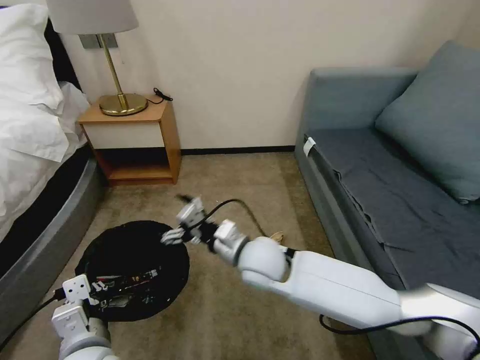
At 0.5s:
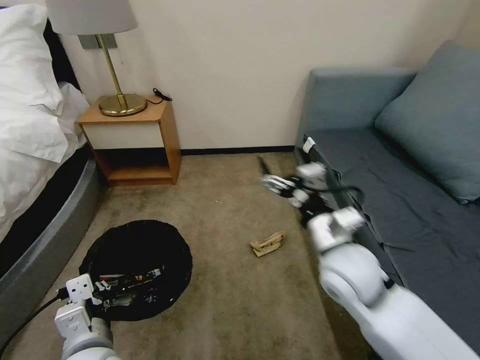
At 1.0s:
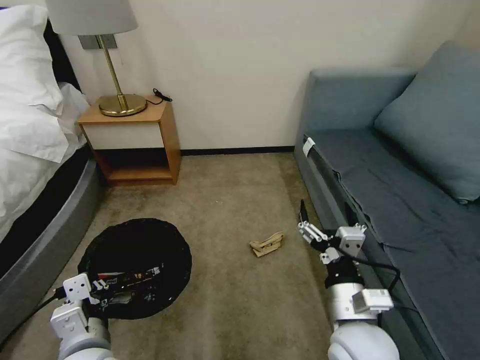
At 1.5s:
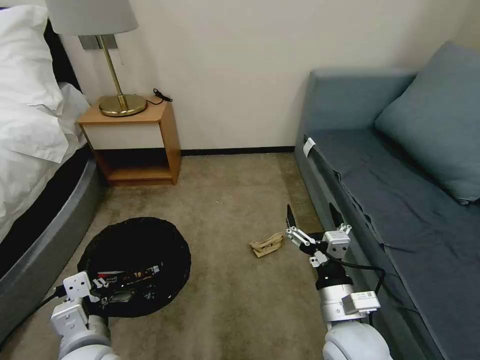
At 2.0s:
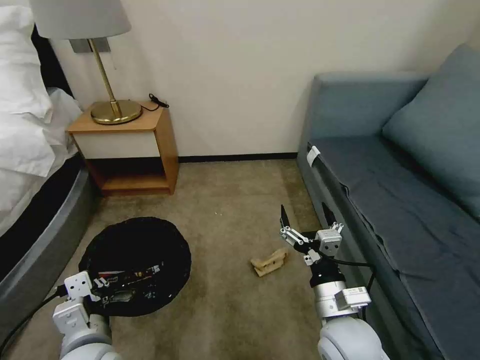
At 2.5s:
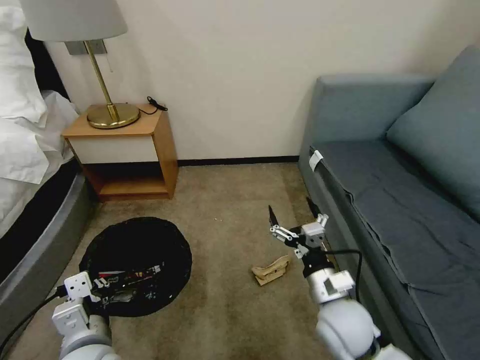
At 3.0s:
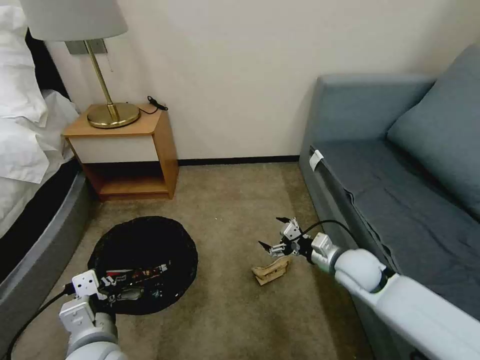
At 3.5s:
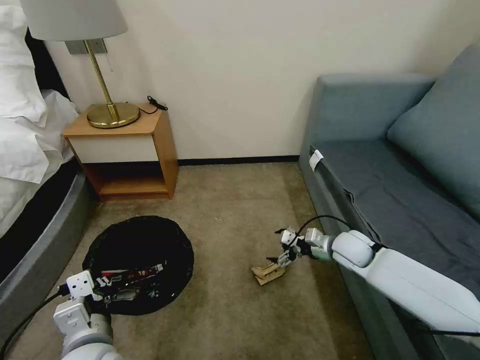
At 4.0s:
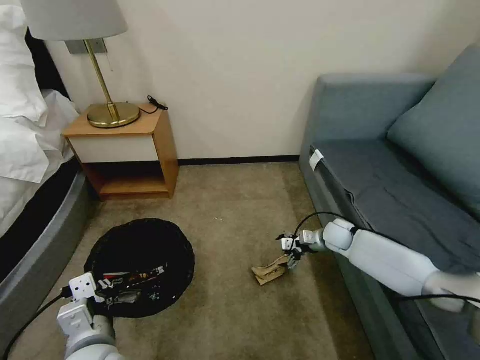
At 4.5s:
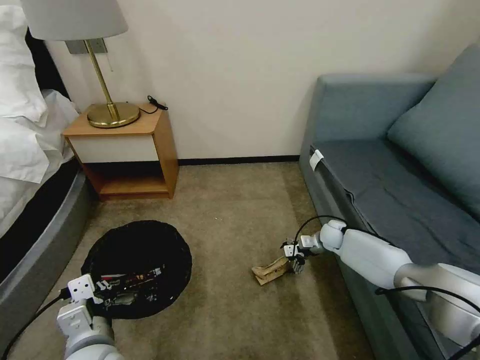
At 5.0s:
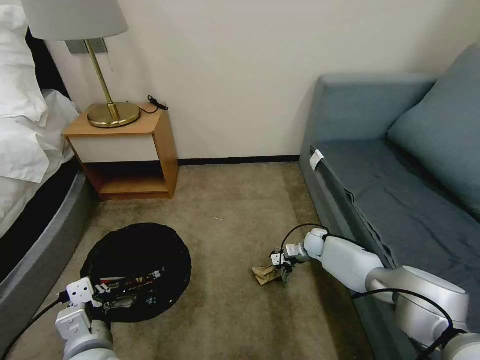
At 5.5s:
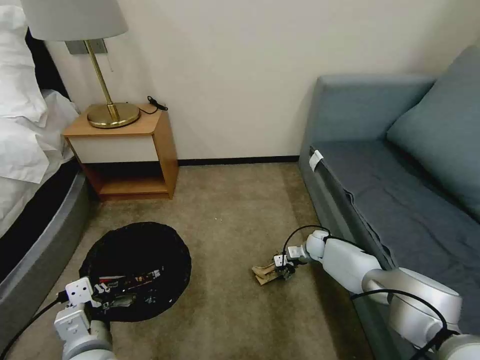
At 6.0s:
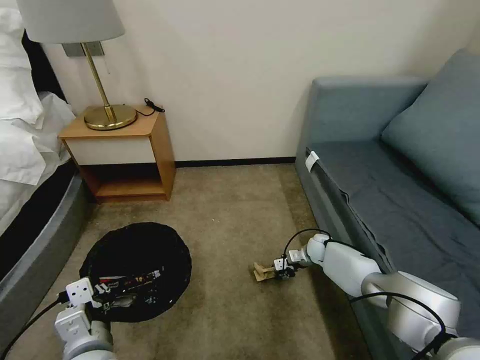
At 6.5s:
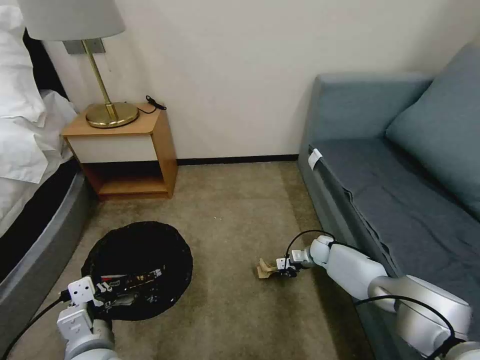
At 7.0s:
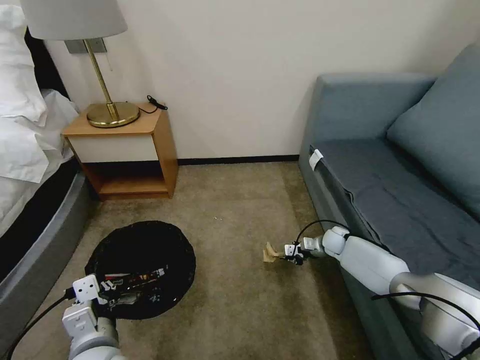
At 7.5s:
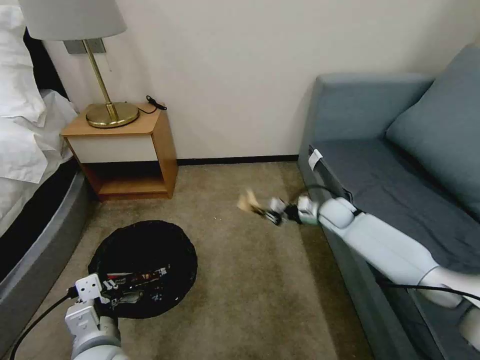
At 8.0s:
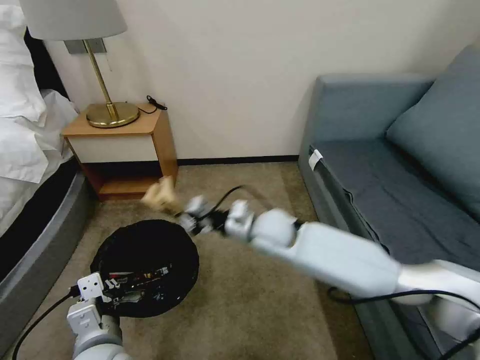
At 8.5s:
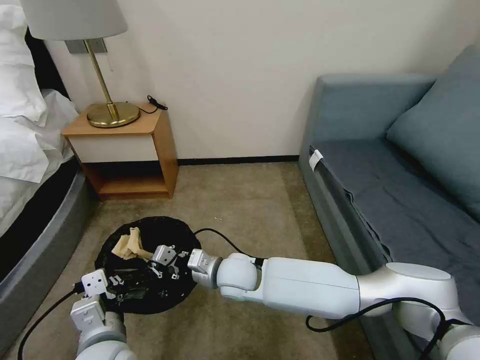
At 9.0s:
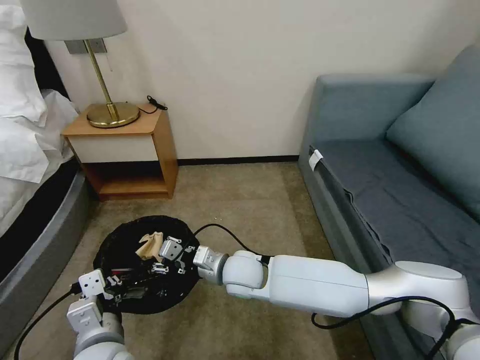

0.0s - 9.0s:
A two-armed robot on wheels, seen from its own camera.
Task of the whole recording: Pick up the trash bin, then pick up the garbage on the floor and place it into the trash bin.
0.0s - 2.0s: The right gripper is displaced to the right and backward by about 20 cm.
2.0s - 4.5s: The right gripper travels forward, downward and to the right by roughly 40 cm.
4.5s - 7.0s: The right gripper closes up.
7.0s - 9.0s: The right gripper is displaced to the left, backward and upward by approximately 40 cm, and opens.

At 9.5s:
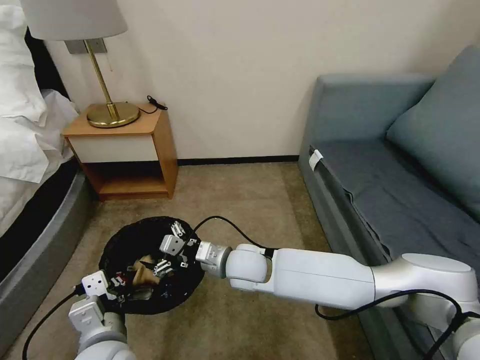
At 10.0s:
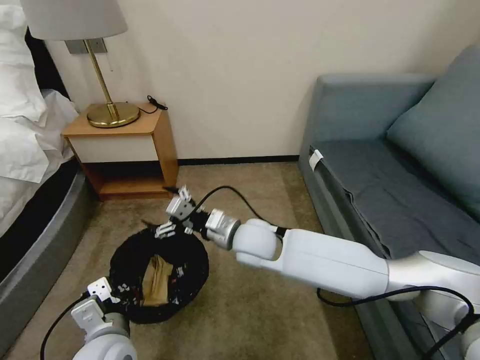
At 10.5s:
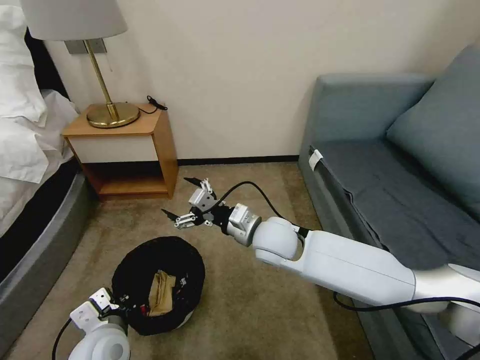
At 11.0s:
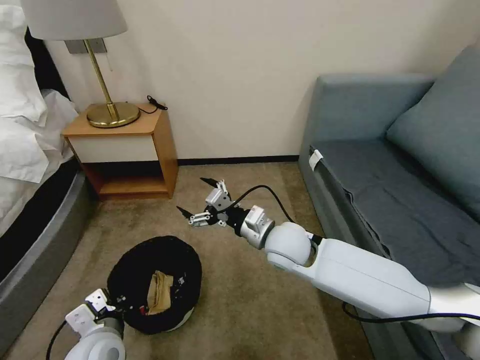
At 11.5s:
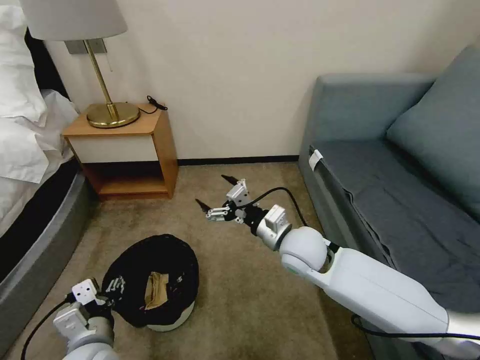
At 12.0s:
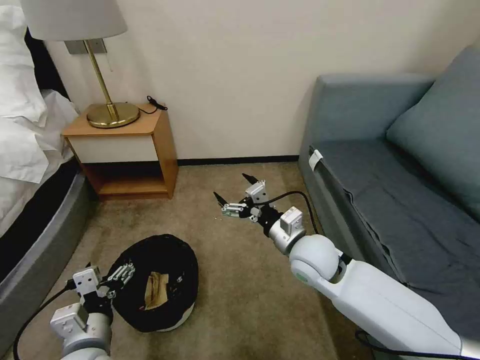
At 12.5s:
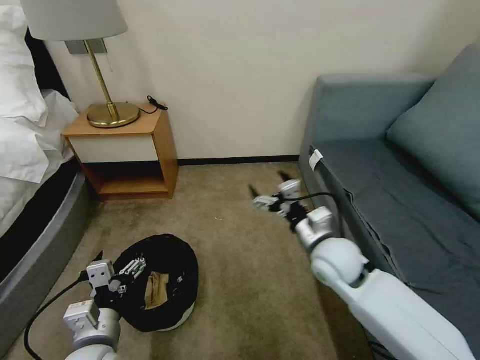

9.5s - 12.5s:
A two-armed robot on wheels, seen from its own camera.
Task of the whole recording: Pick up the trash bin, then pick up the garbage on the floor and place it into the trash bin.
9.5s - 11.0s: The left gripper travels downward by roughly 5 cm. Meanwhile the right gripper is displaced to the right and upward by approximately 10 cm.
11.0s - 12.5s: The right gripper is displaced to the right by roughly 10 cm, while the left gripper opens.

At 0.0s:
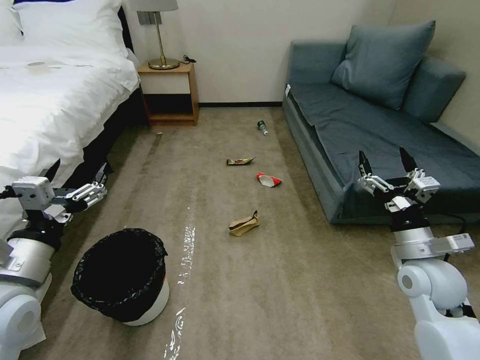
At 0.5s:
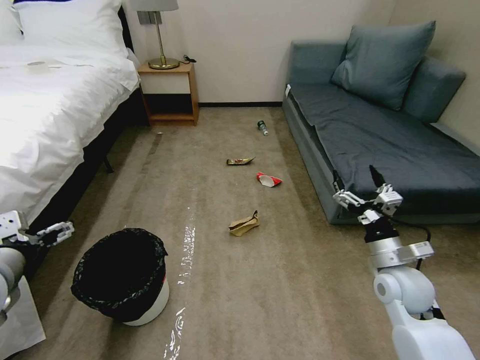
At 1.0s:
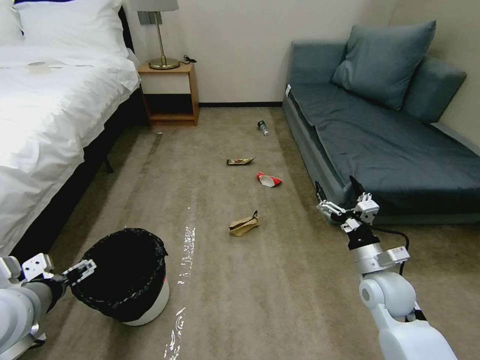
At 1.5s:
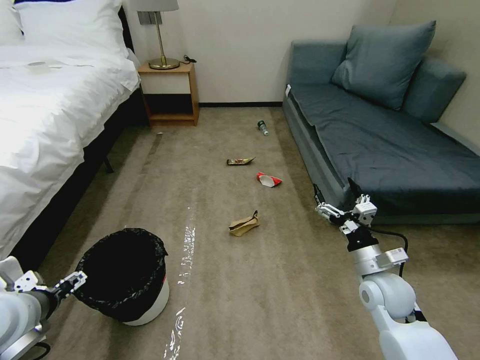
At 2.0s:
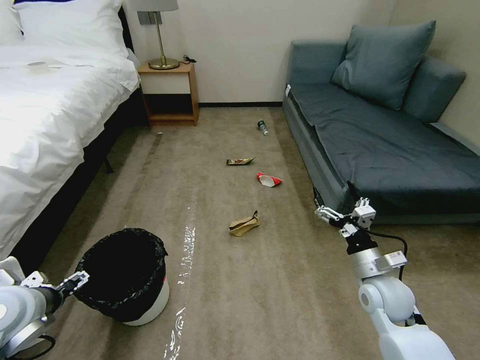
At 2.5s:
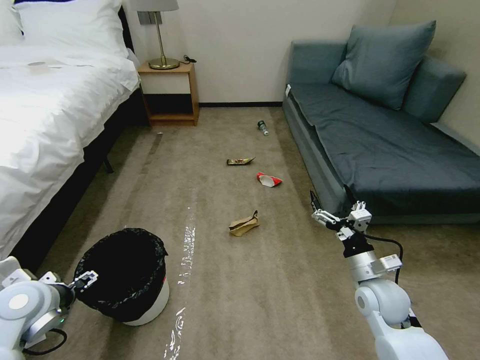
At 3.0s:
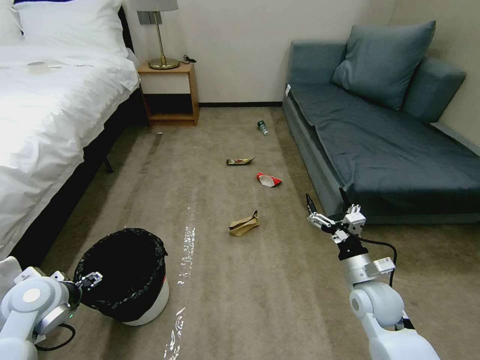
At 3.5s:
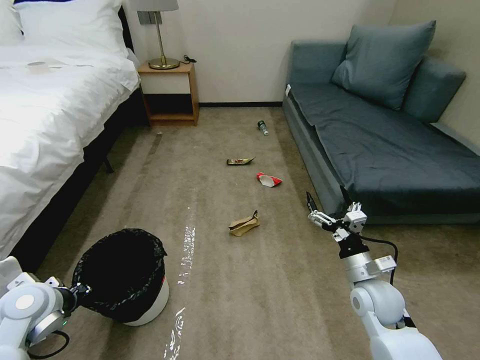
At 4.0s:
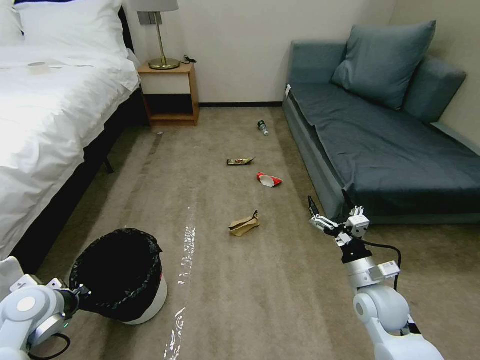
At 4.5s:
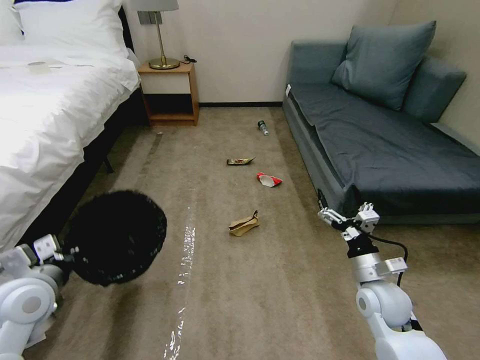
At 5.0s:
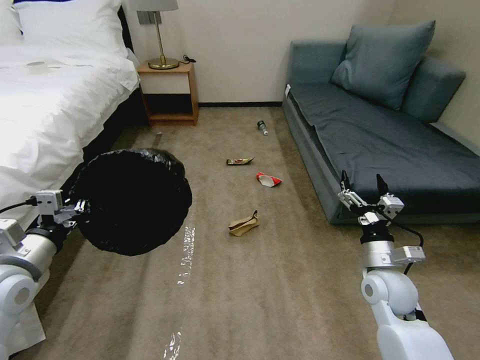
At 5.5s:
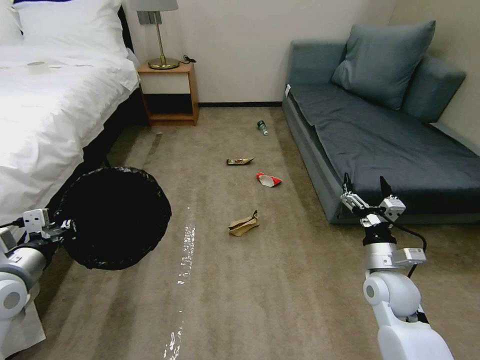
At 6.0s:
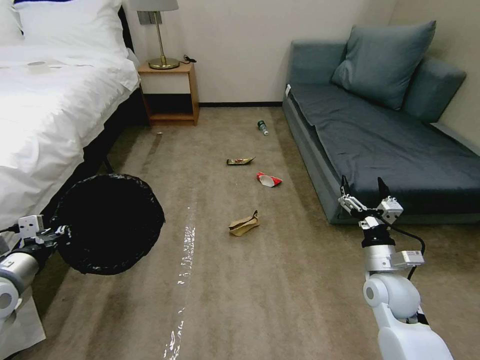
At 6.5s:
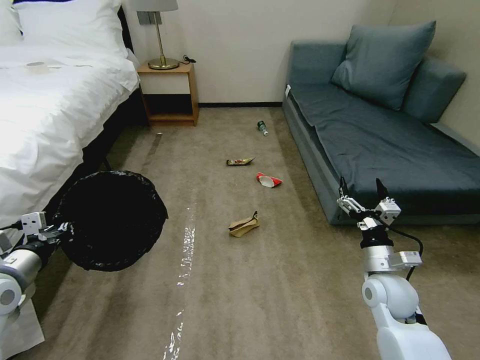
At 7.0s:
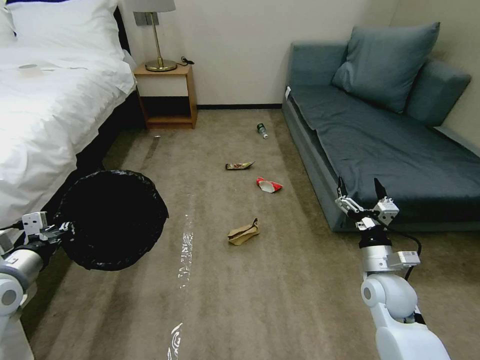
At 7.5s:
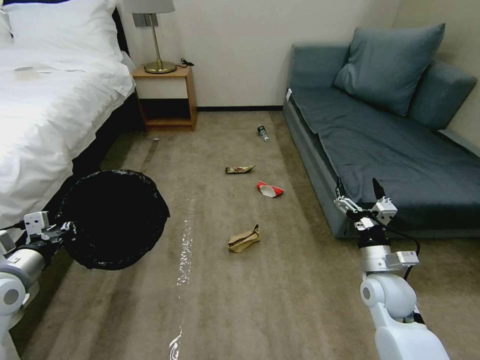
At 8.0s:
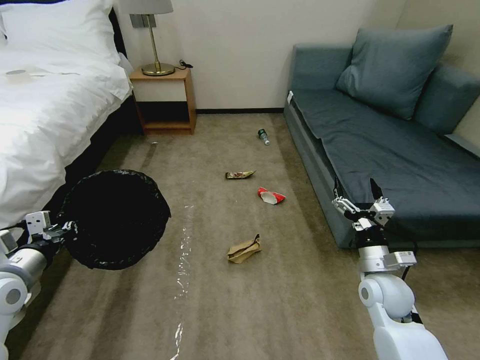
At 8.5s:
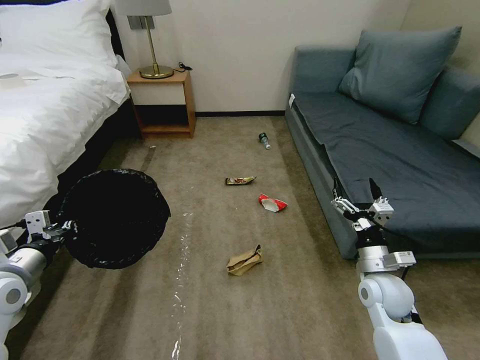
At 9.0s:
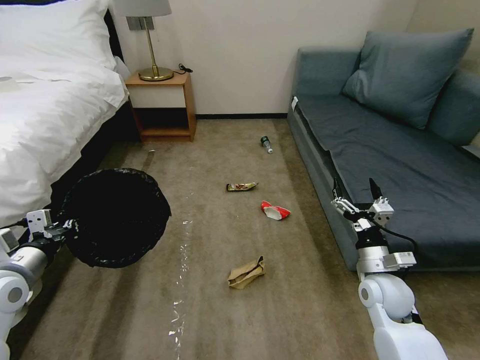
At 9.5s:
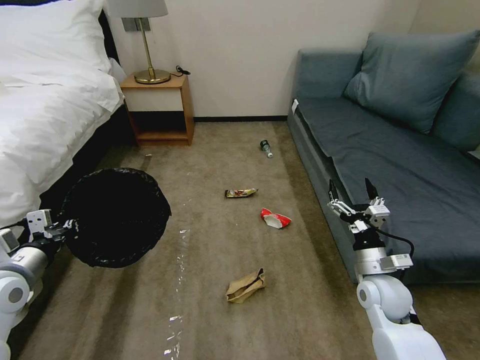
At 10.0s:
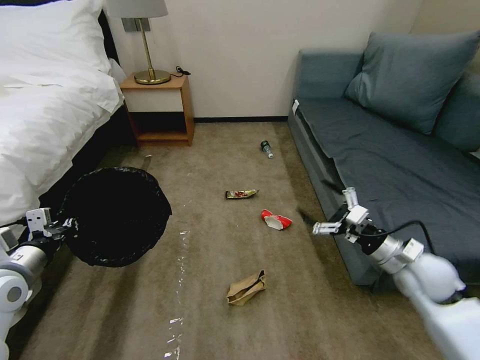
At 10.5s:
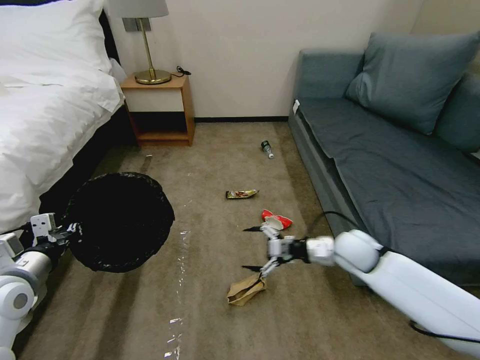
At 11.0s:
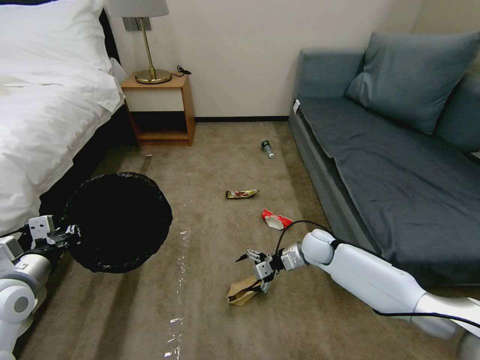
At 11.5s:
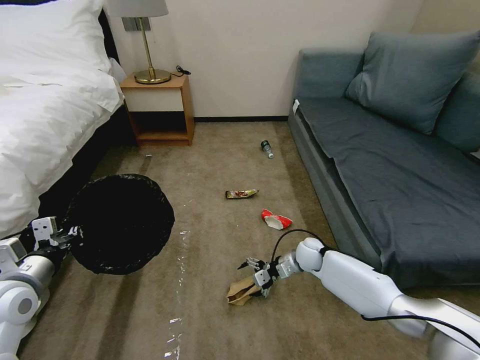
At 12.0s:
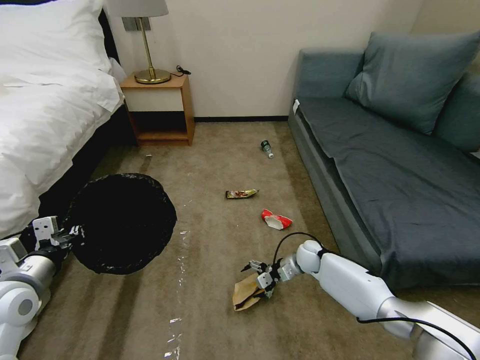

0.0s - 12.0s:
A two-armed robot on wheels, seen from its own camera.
Task of the whole recording: Pick up the trash bin, then pick up the garbage on the floor and place it into the trash bin.
2.0s - 4.0s: The left gripper goes roughly 5 cm downward, and closes up.
4.0s - 6.0s: The left gripper goes roughly 5 cm upward.
8.0s - 10.0s: The right gripper goes approximately 10 cm to the right and upward.
10.0s - 12.0s: The right gripper travels downward, forward and to the left by about 30 cm.

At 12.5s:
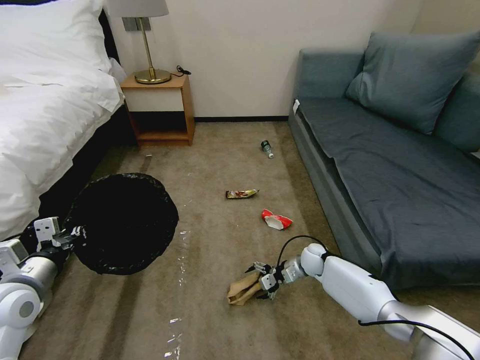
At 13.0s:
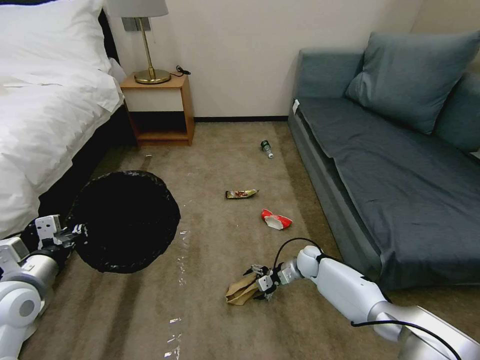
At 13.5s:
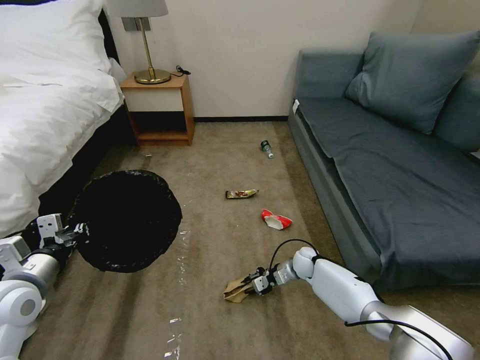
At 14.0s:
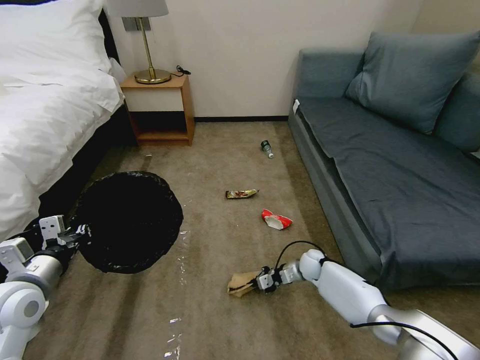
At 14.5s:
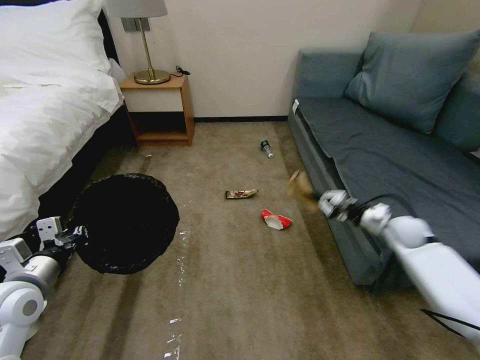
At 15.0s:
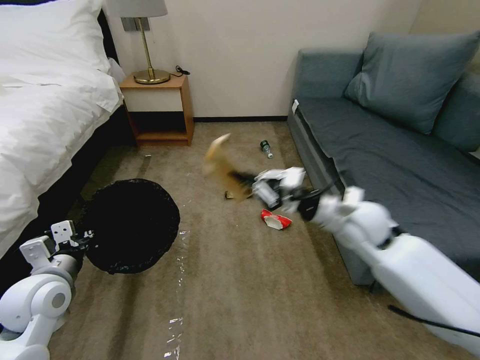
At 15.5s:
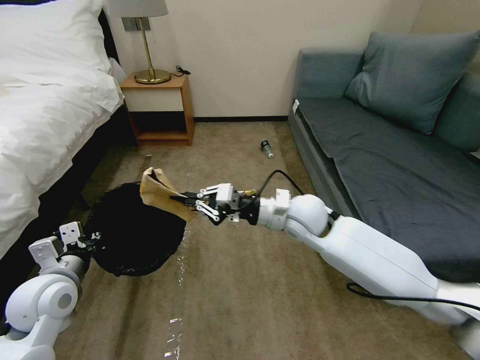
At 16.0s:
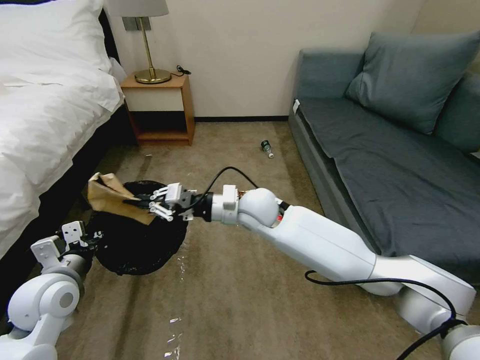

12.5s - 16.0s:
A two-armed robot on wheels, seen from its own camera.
Task of the whole recording: Pick up the trash bin, then pick up the garbage on the floor and place it into the trash bin.
12.5s - 14.5s: The right gripper moves to the right and upward, some 25 cm, and closes up.
14.5s - 16.0s: The left gripper ends up about 5 cm from where it was. Meanwhile the right gripper moves to the left, about 40 cm.
